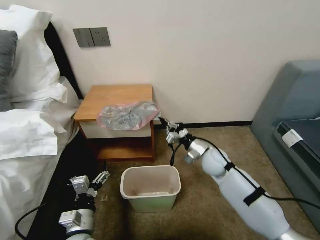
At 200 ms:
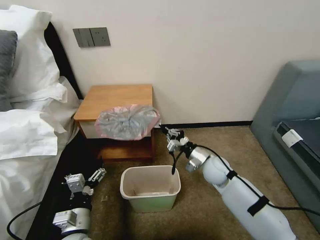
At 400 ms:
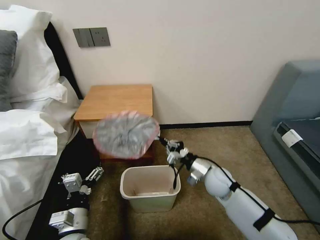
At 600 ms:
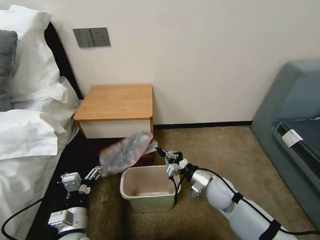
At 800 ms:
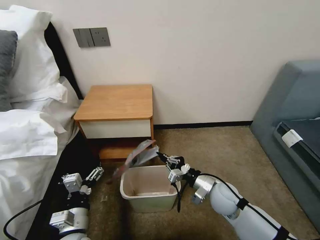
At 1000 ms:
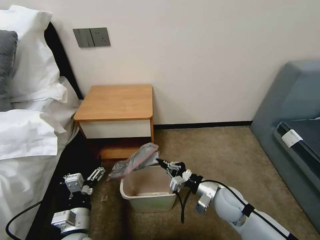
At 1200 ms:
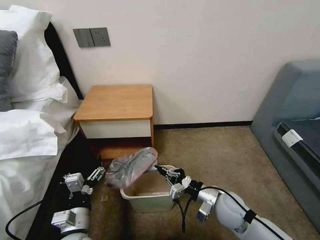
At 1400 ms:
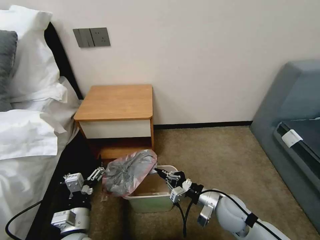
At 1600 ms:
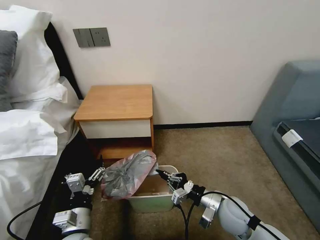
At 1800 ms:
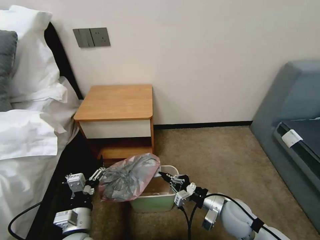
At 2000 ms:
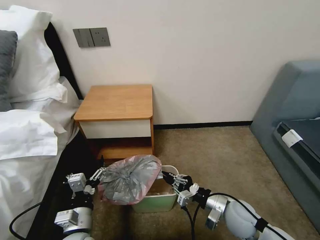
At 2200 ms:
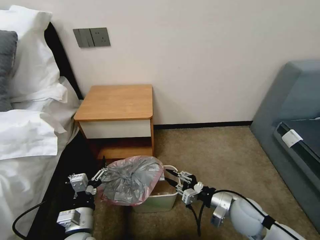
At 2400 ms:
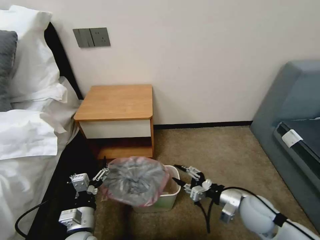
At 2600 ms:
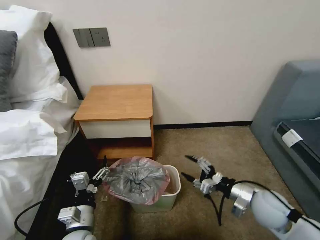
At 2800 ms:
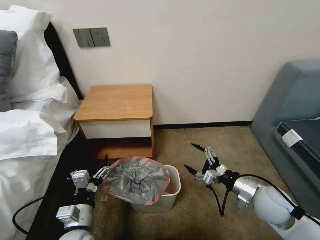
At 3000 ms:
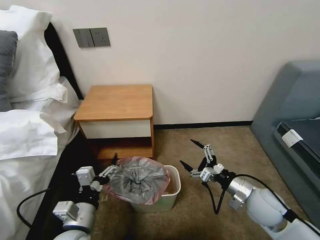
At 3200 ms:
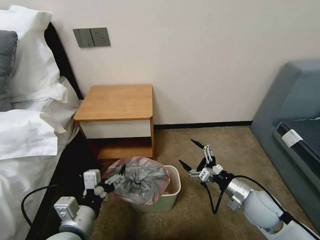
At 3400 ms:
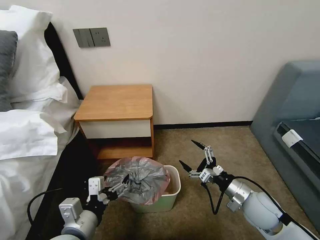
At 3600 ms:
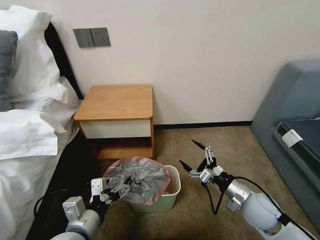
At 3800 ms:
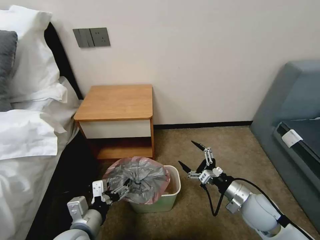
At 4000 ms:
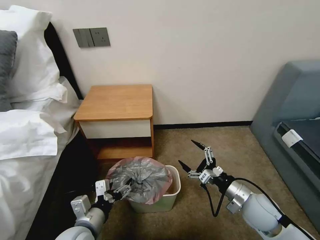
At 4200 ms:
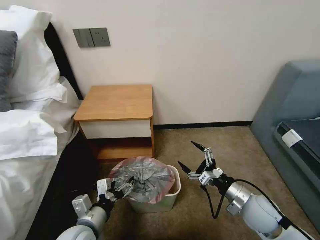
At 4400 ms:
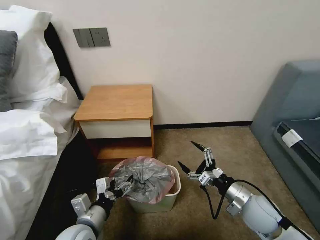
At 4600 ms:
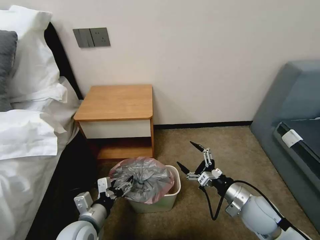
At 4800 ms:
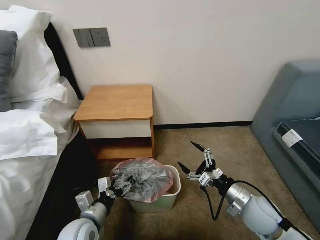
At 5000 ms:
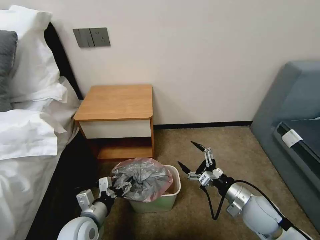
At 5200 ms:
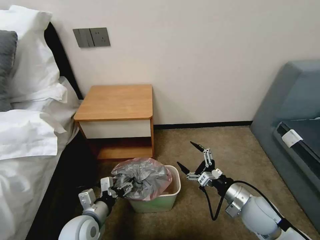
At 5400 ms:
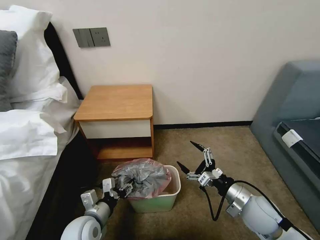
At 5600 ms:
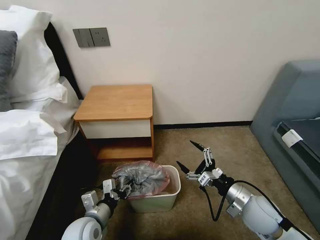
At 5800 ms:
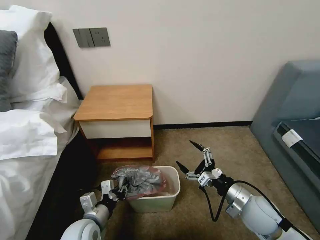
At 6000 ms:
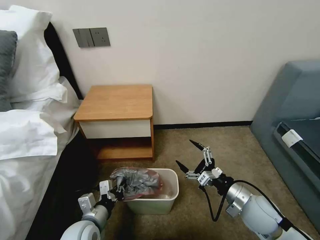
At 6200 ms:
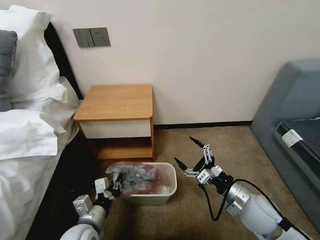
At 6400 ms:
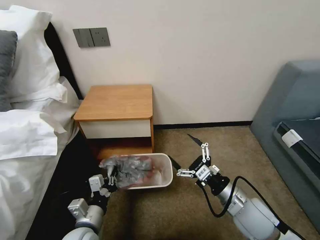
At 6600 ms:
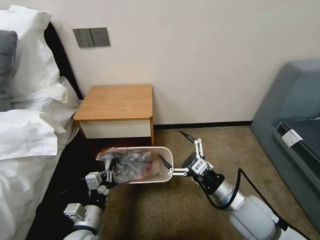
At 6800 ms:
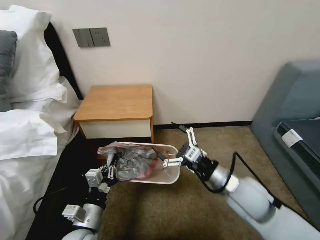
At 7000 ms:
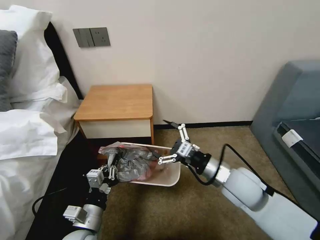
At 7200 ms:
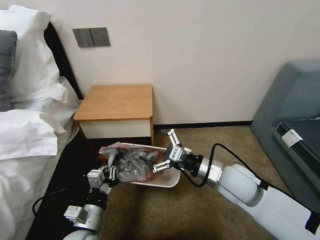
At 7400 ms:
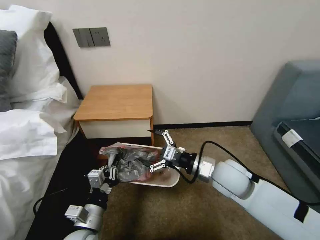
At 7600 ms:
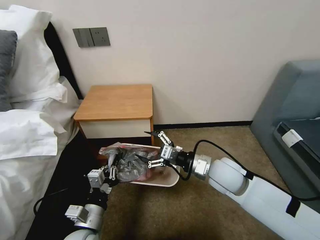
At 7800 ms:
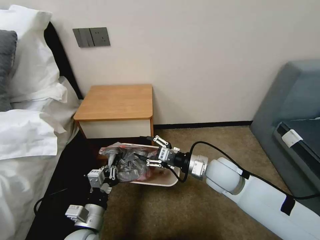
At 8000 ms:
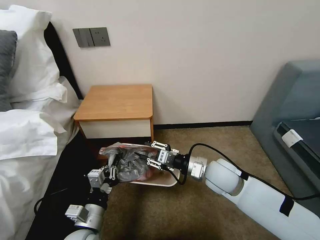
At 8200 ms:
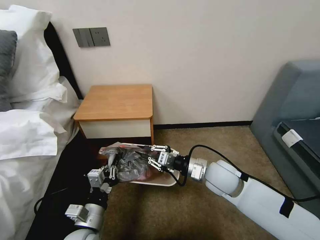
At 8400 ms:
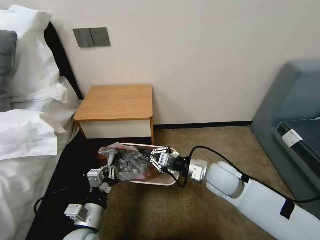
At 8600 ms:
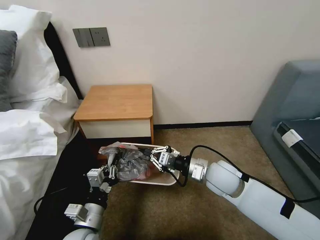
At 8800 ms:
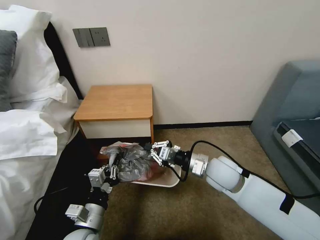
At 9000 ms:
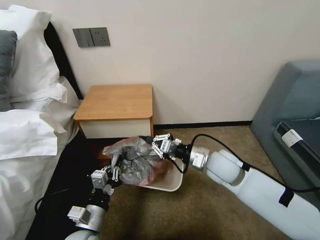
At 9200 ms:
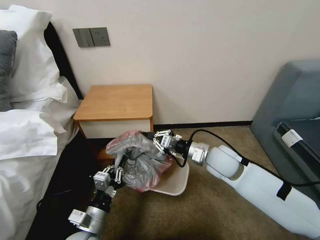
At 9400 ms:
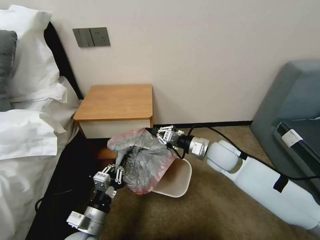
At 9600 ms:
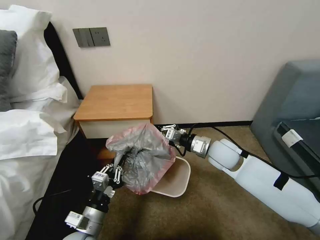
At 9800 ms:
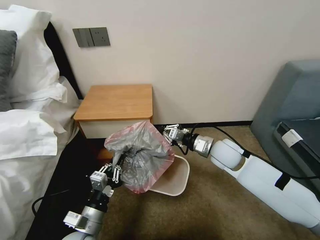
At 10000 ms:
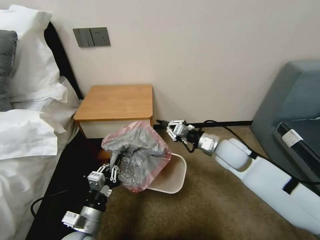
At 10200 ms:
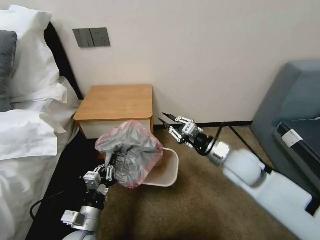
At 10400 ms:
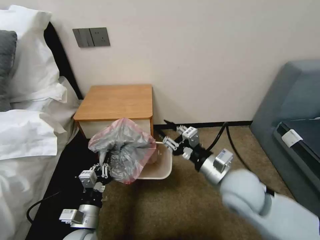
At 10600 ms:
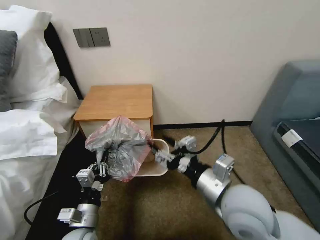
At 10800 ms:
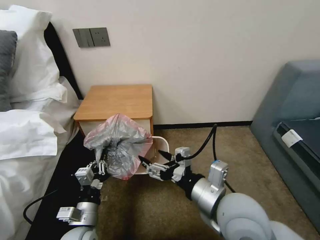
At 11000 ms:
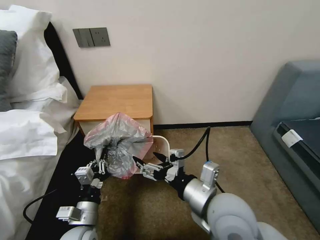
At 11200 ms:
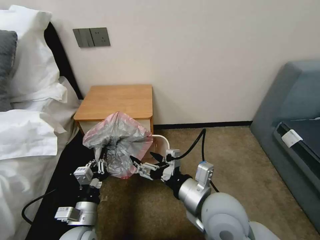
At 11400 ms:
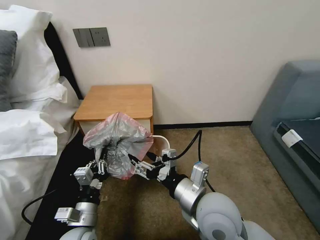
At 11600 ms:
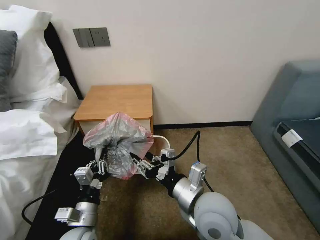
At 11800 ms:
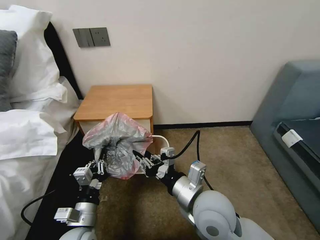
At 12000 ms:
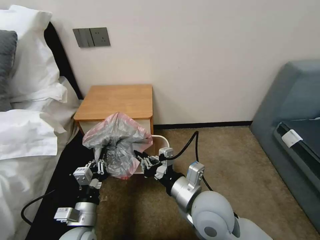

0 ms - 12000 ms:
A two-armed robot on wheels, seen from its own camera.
Task of the whole recording: Pick up the garbage bag from the table and place it over the trash can.
0 ms - 1600 ms: The right gripper moves backward, approximately 15 cm.
1600 ms - 3000 ms: The right gripper goes approximately 10 cm to the right, and opens. Meanwhile the left gripper travels upward by roughly 5 cm.
4400 ms - 6000 ms: The left gripper closes up.
6000 ms - 7600 ms: The right gripper goes approximately 15 cm to the left, forward and upward.
7600 ms - 9000 ms: The right gripper closes its fingers.
9000 ms - 10400 ms: The right gripper goes roughly 10 cm backward, and opens.
10400 ms - 12000 ms: The right gripper travels to the left by about 5 cm, and closes up.

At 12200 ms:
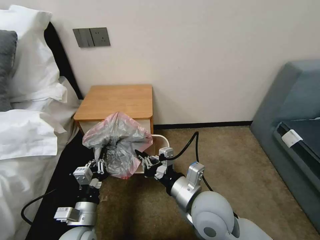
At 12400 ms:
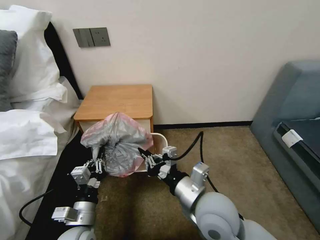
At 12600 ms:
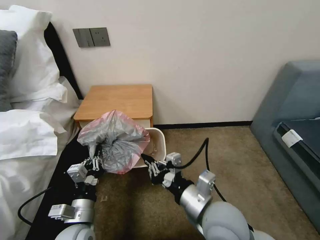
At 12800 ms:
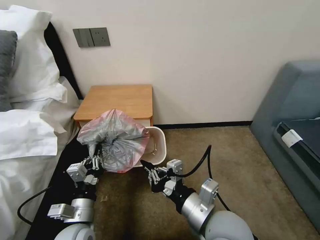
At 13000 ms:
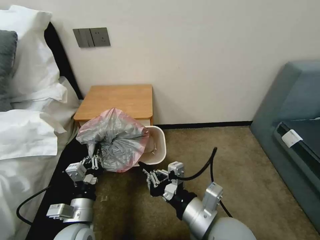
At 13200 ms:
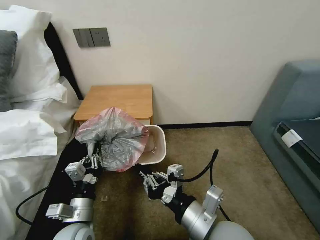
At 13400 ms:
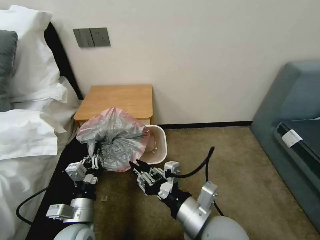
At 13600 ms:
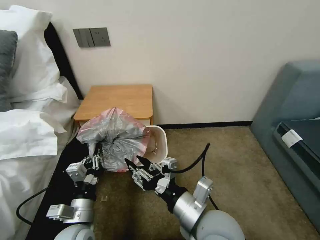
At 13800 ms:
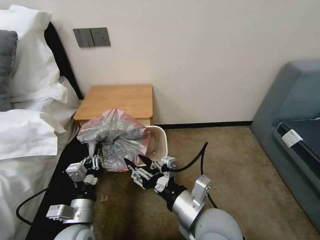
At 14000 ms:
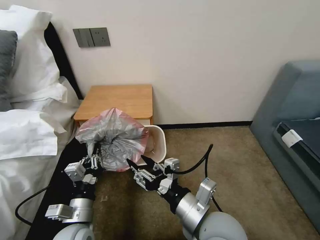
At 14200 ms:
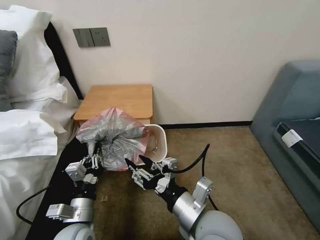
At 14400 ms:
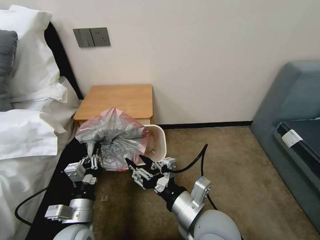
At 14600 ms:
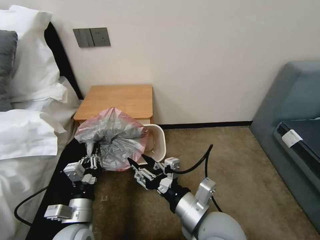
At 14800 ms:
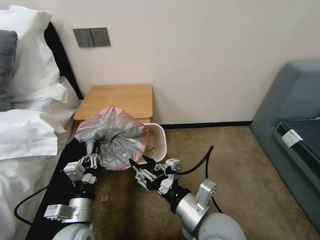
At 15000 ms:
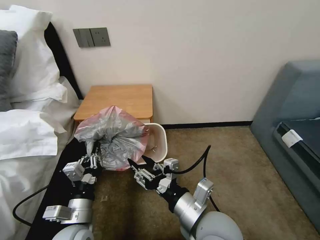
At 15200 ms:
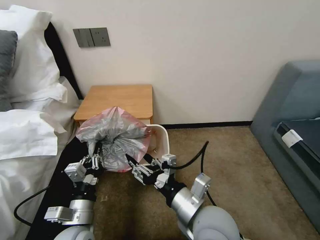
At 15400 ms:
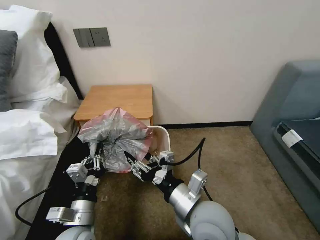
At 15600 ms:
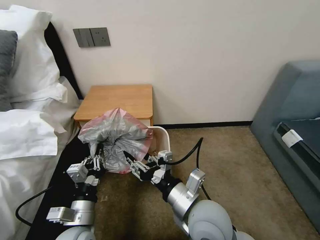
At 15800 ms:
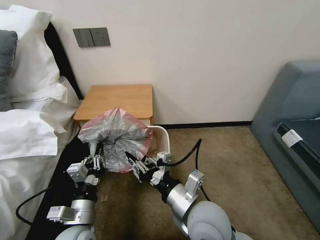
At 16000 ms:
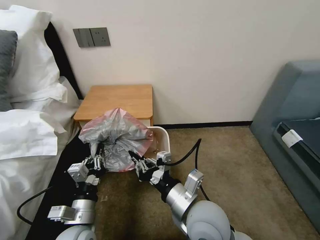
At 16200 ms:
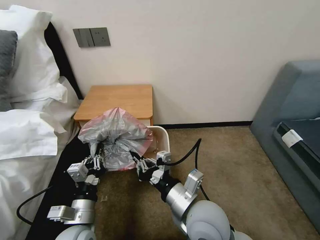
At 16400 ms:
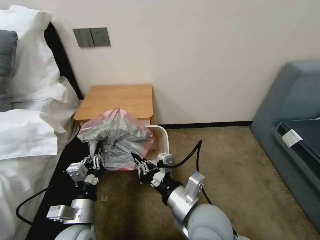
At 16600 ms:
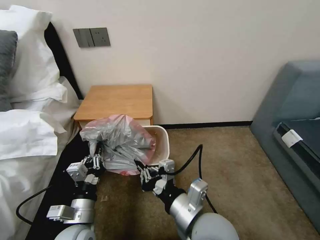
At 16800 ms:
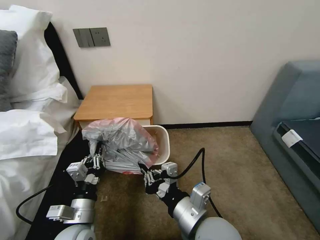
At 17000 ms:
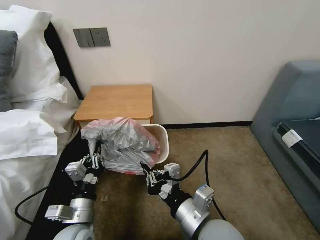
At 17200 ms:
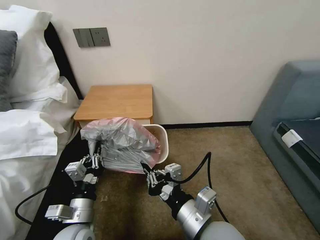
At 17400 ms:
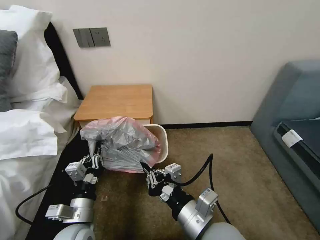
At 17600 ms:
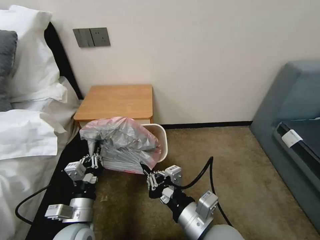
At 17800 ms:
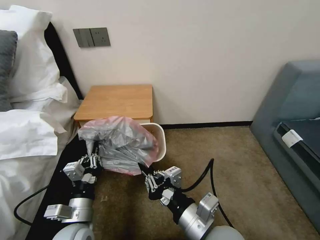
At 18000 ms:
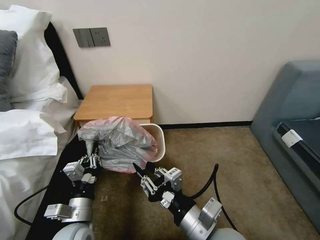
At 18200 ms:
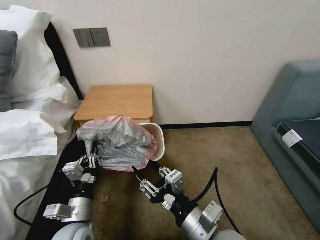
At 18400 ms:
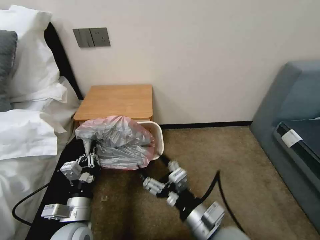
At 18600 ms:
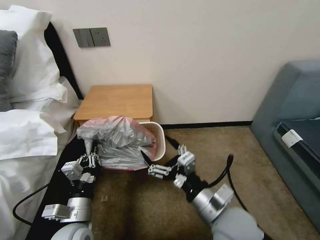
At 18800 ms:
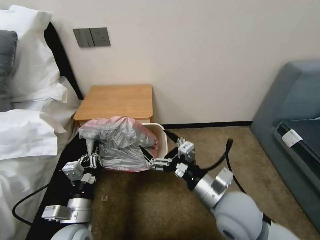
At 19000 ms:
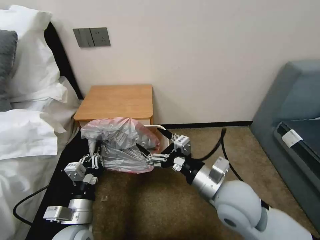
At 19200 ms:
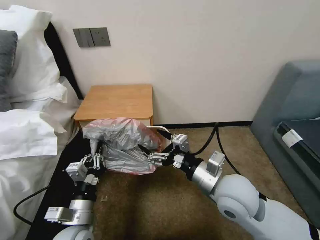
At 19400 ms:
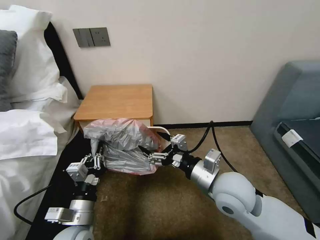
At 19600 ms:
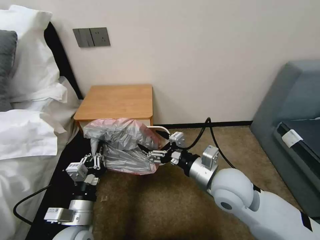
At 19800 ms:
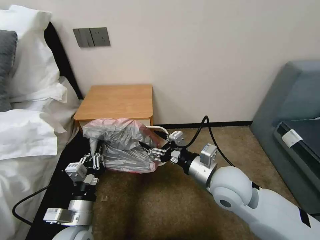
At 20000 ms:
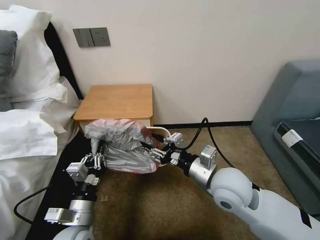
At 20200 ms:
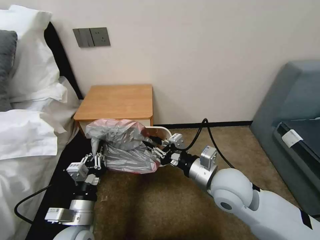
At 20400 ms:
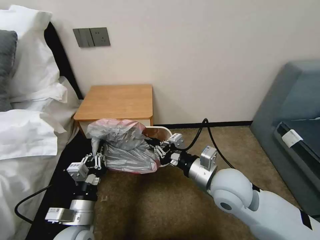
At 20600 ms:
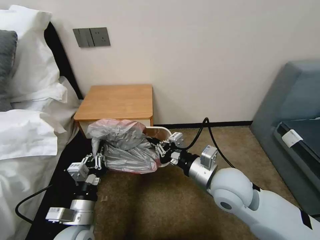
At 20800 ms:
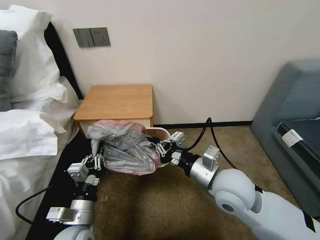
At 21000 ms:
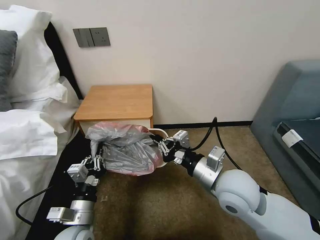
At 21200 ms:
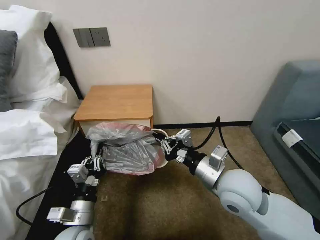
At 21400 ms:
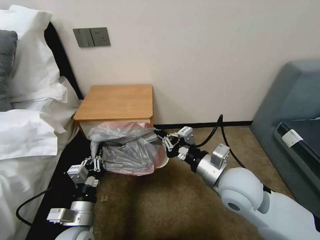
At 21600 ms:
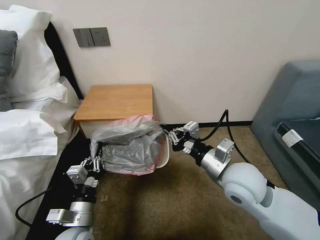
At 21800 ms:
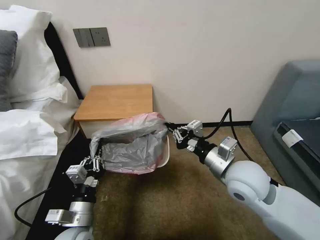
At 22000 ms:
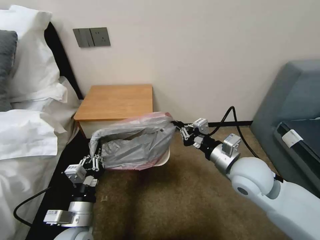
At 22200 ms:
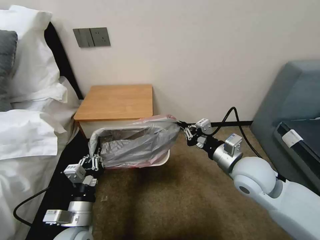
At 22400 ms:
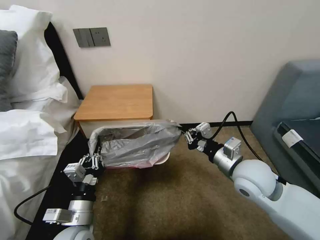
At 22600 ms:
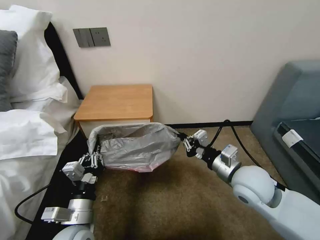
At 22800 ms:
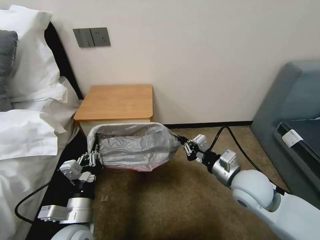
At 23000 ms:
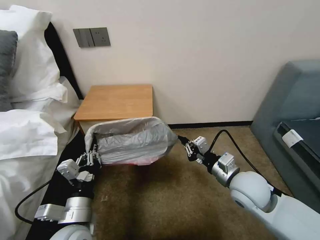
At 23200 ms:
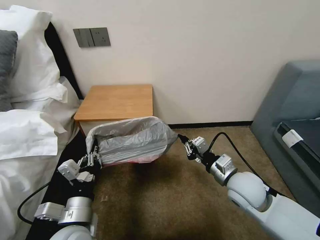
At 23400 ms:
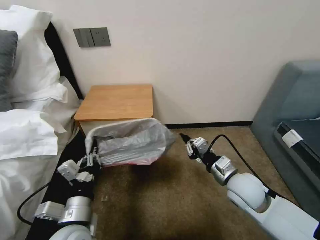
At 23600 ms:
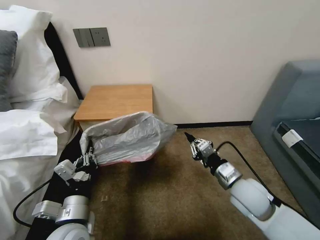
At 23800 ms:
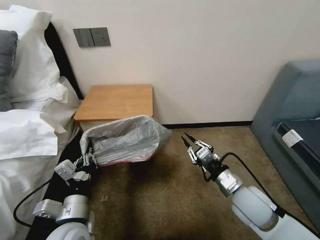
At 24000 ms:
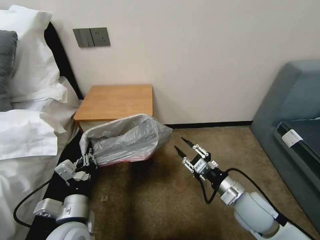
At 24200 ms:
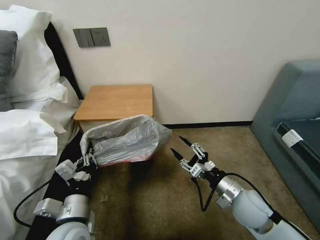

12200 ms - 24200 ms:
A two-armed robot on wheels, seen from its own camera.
Task of the whole recording: Pick up the garbage bag from the table and place it over the trash can.
12200 ms - 13800 ms: The right gripper opens.
13800 ms - 15200 ms: The two grippers keep their place.
15200 ms - 16600 ms: The right gripper closes its fingers.
16600 ms - 18200 ms: The right gripper opens.
18200 ms - 19800 ms: The right gripper heads forward, covering some 15 cm.
19800 ms - 21200 ms: The right gripper closes up.
21200 ms - 22600 ms: The right gripper is displaced to the right by roughly 5 cm.
22600 ms - 24200 ms: The right gripper moves downward, about 10 cm, and opens.
